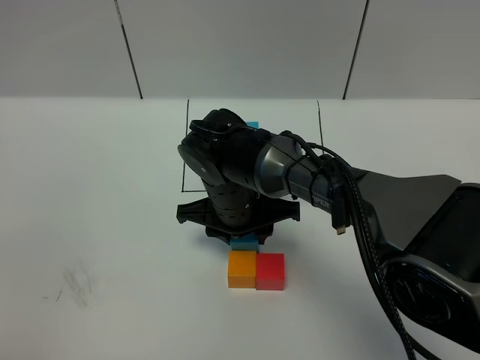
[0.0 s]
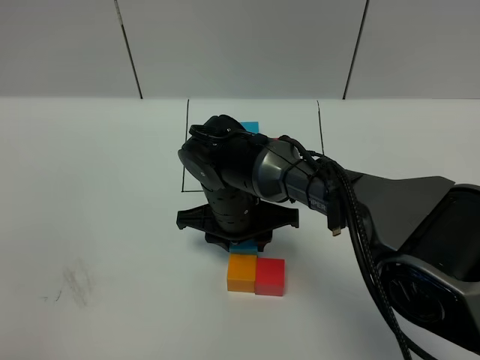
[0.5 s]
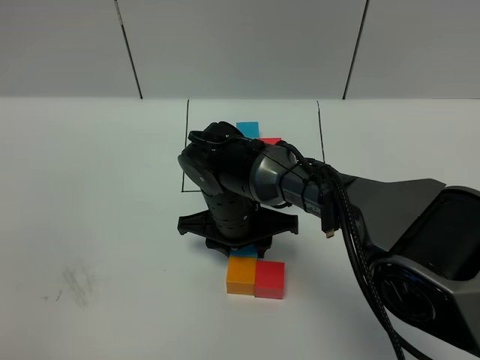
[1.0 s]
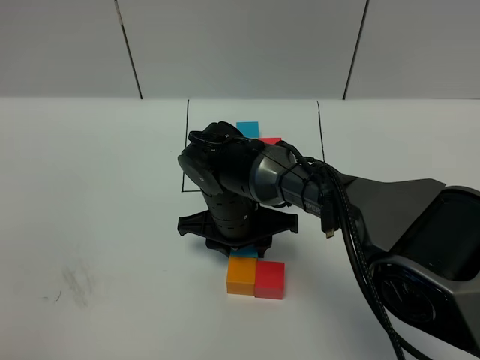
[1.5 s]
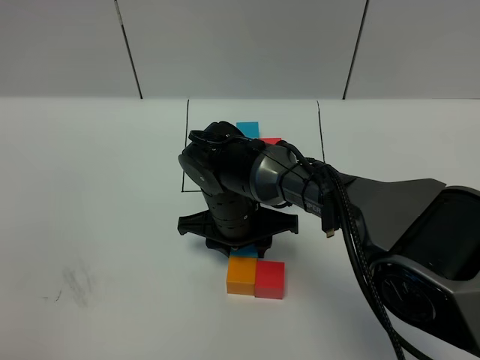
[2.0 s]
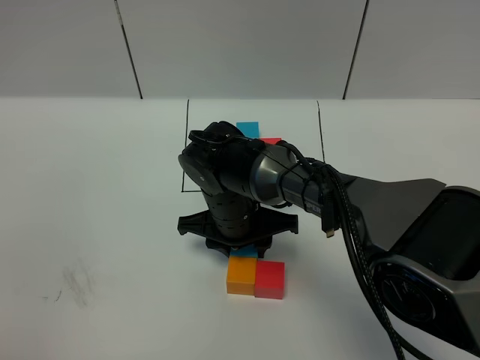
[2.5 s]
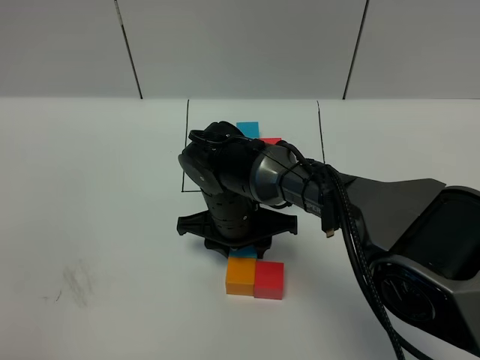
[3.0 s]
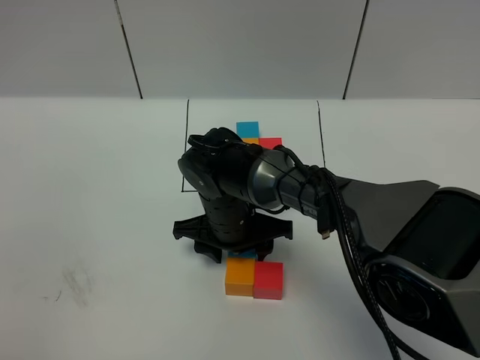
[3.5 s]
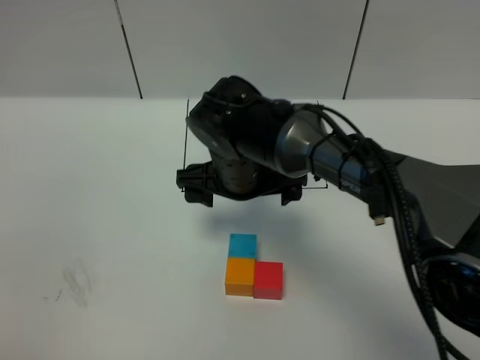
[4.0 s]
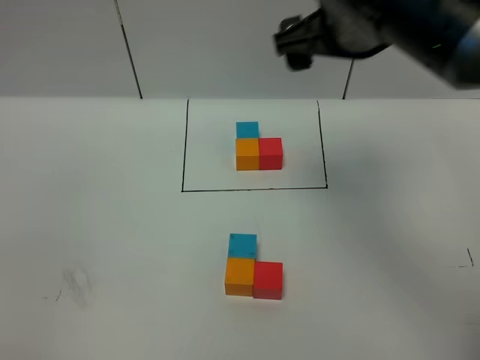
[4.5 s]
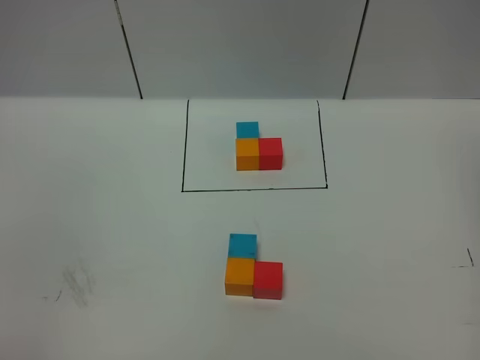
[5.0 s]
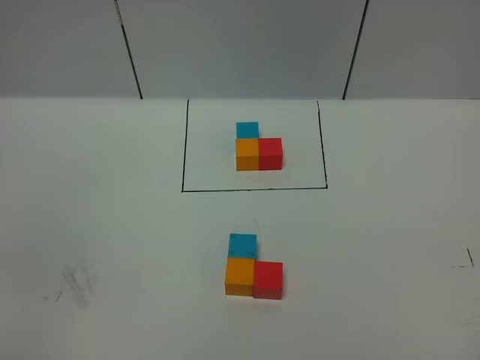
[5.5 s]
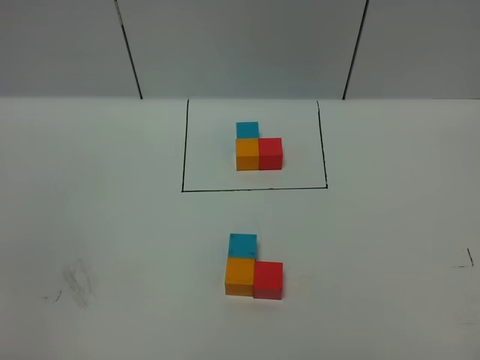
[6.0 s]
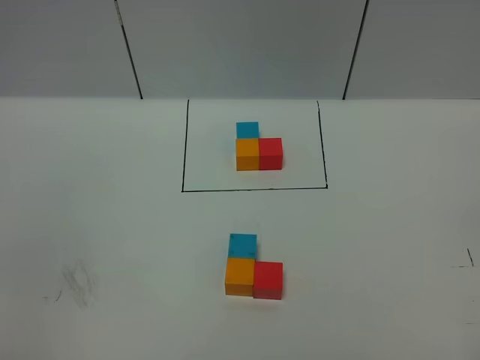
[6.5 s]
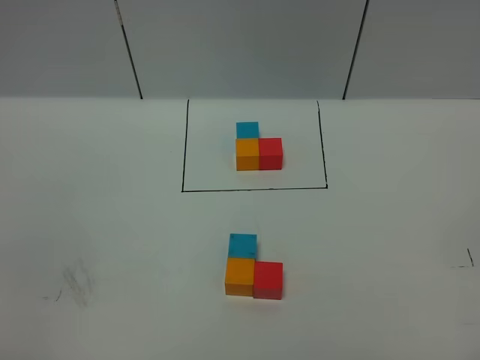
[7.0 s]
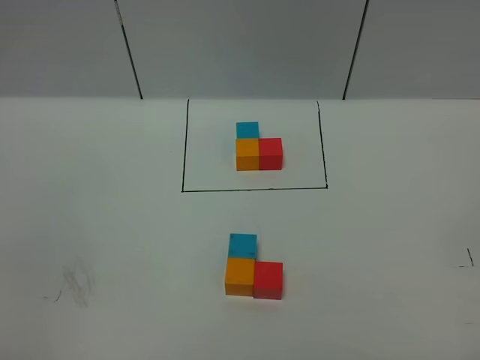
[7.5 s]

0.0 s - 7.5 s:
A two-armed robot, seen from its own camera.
Task of the whole recording: According to the building block template in front, assemble the scattered blocks together.
Step, 0.0 s - 3.5 s: Put the blue cube on the behind of the orange cube.
0.0 s - 2.0 s: The grippers stay close to where they were, moving slightly.
2.0 s - 4.0 s: The right gripper is displaced upward by about 10 cm, and opens its fingers.
4.0 s - 5.5 s: The right gripper goes roughly 60 cm upward, to the right and backward.
